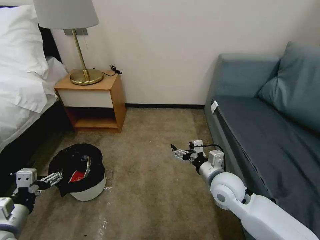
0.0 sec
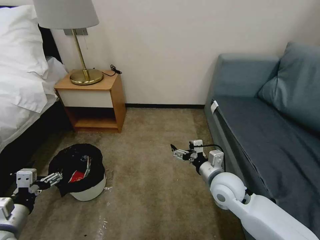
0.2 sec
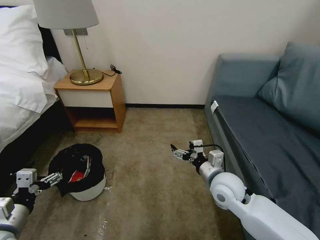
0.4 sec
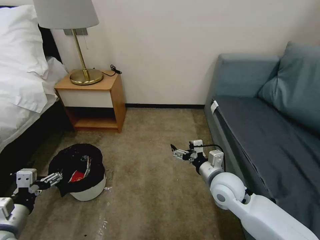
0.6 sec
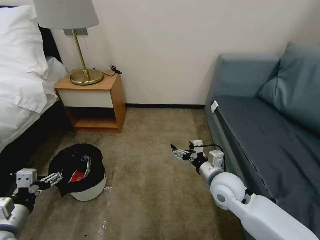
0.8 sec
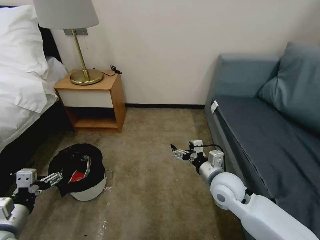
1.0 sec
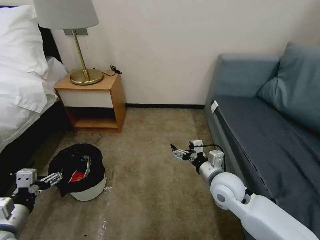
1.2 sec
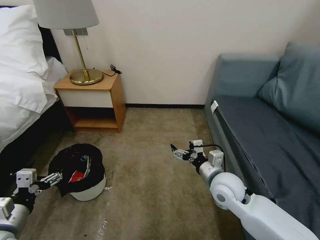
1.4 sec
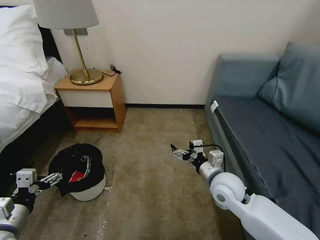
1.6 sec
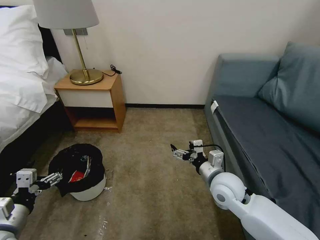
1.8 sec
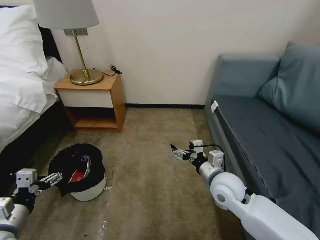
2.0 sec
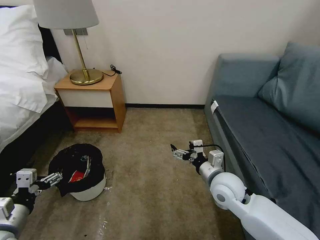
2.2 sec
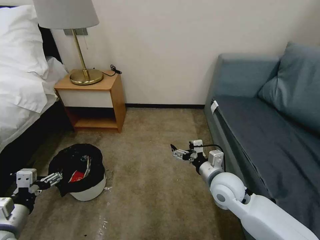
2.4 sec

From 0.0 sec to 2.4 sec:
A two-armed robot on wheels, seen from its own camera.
Task of the whole recording: Pick up the trash bin, then pick up the garbage on the floor and place it into the trash bin.
From 0.0 sec to 2.4 sec: Both grippers stay put.

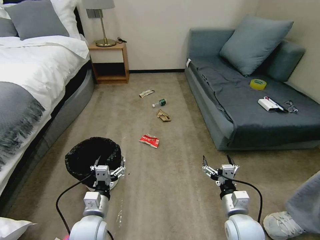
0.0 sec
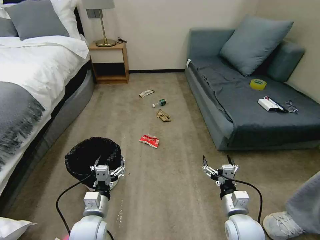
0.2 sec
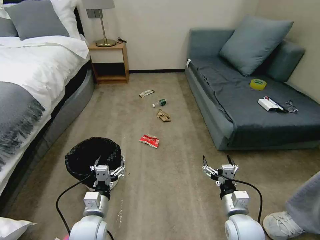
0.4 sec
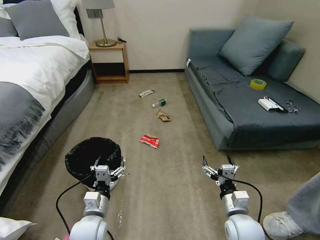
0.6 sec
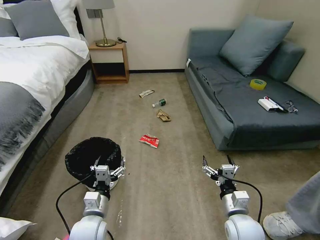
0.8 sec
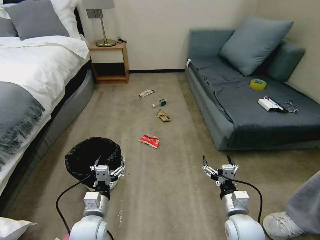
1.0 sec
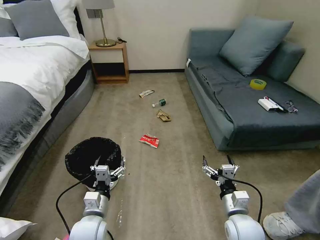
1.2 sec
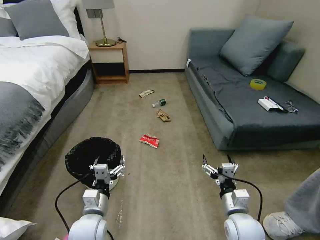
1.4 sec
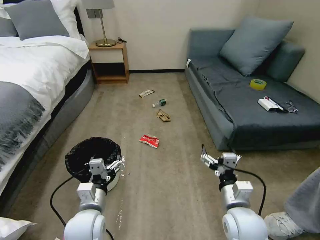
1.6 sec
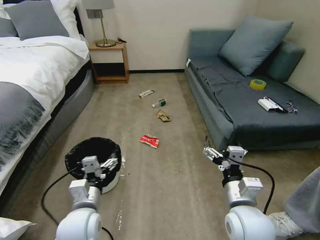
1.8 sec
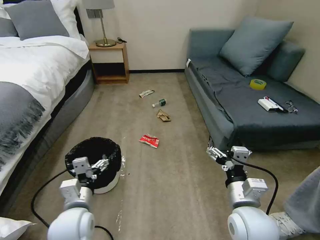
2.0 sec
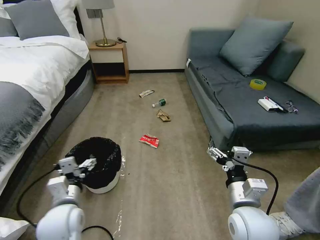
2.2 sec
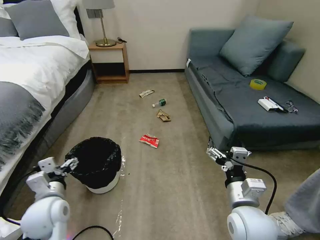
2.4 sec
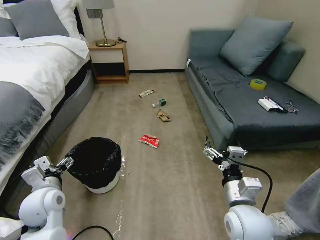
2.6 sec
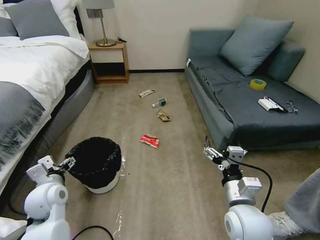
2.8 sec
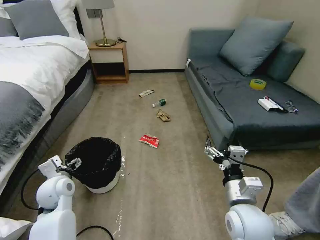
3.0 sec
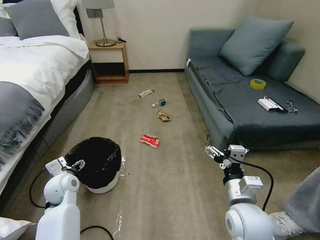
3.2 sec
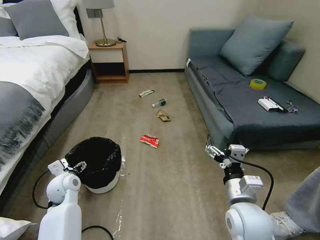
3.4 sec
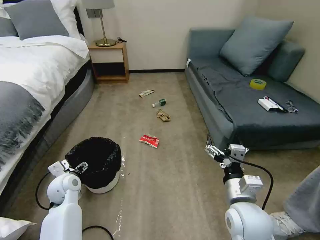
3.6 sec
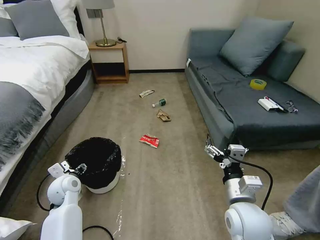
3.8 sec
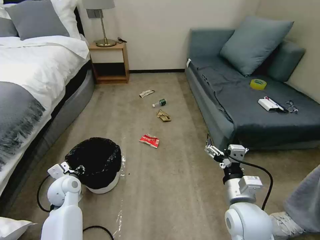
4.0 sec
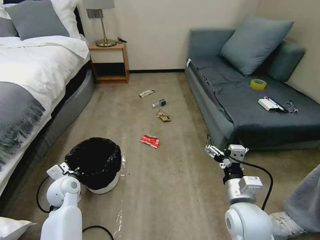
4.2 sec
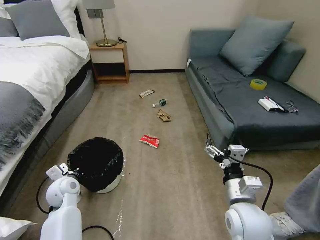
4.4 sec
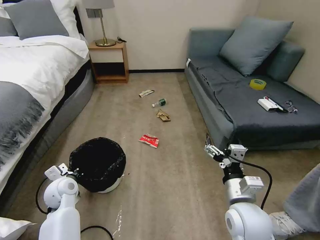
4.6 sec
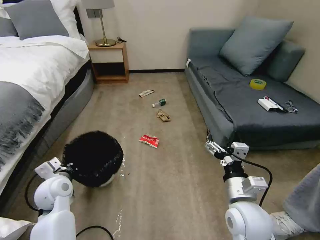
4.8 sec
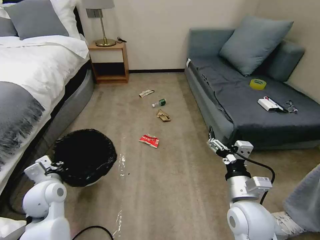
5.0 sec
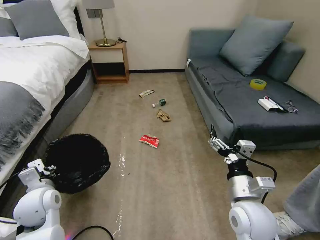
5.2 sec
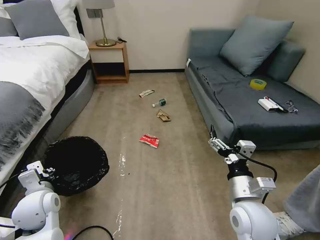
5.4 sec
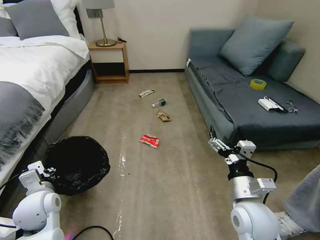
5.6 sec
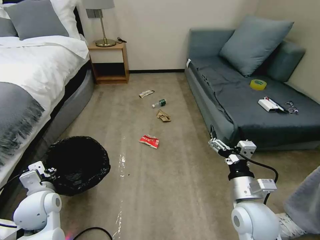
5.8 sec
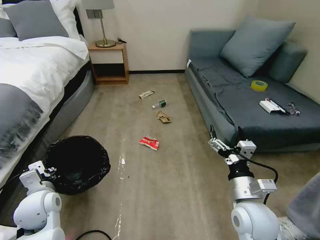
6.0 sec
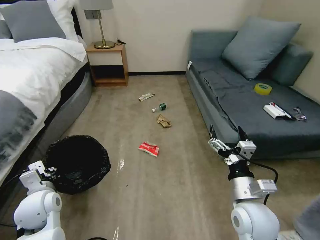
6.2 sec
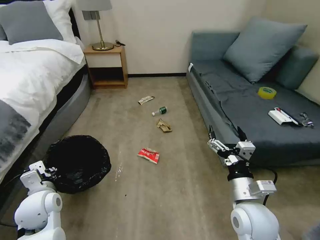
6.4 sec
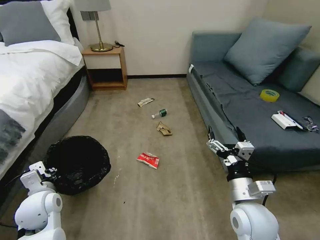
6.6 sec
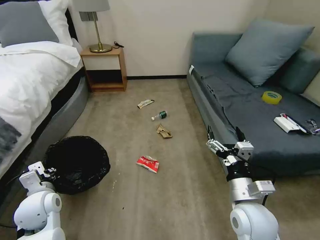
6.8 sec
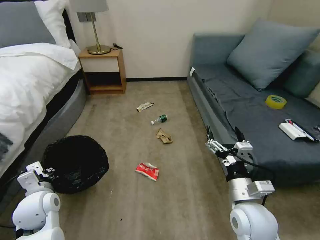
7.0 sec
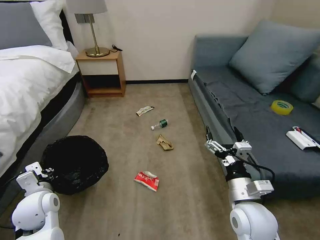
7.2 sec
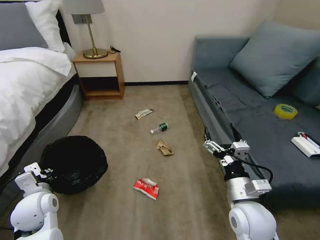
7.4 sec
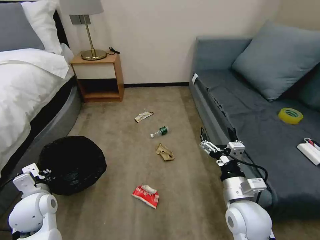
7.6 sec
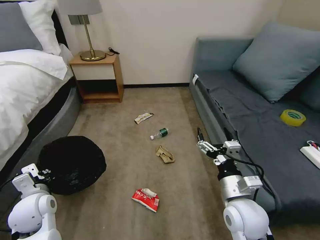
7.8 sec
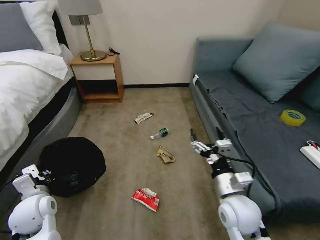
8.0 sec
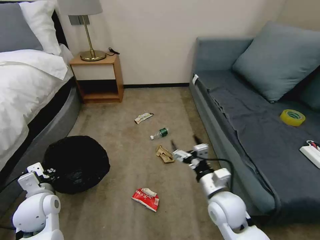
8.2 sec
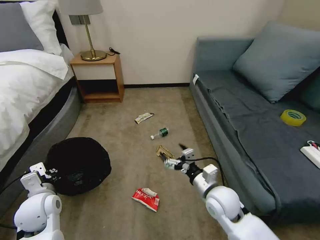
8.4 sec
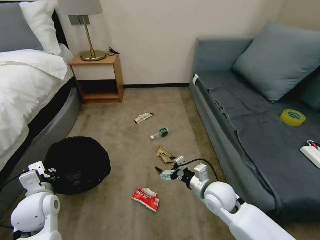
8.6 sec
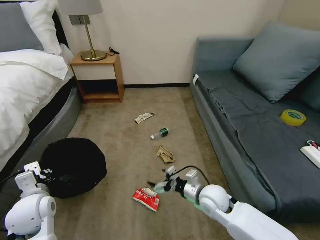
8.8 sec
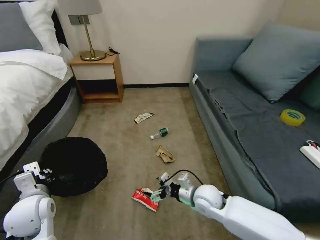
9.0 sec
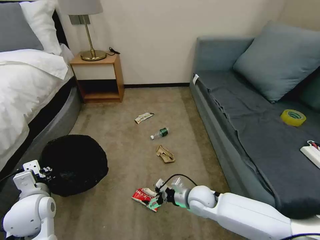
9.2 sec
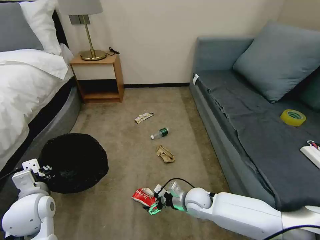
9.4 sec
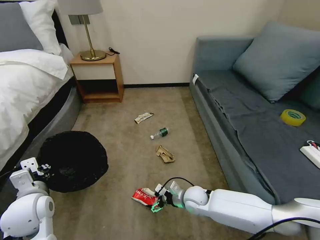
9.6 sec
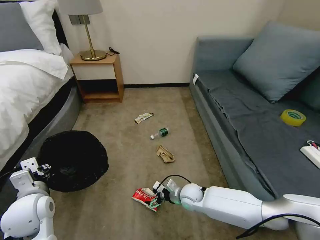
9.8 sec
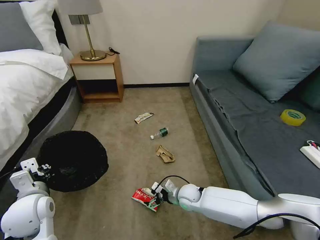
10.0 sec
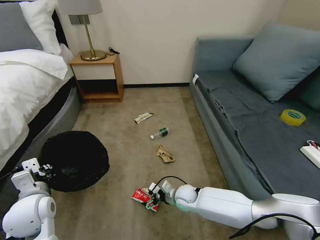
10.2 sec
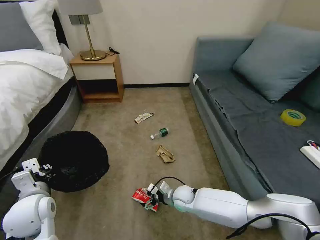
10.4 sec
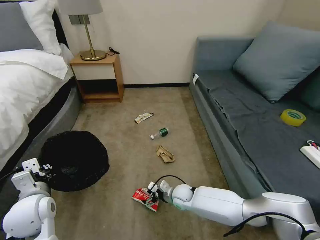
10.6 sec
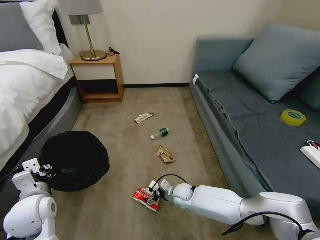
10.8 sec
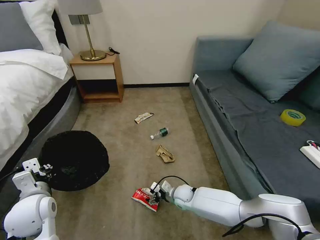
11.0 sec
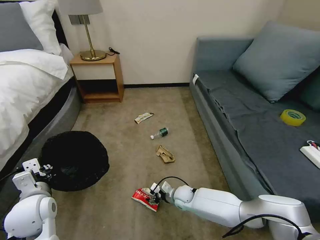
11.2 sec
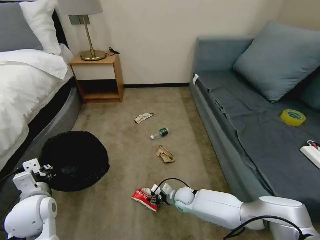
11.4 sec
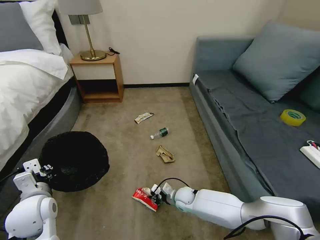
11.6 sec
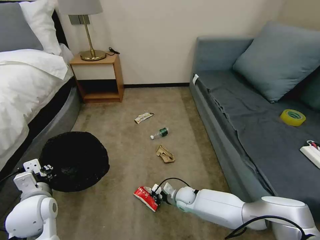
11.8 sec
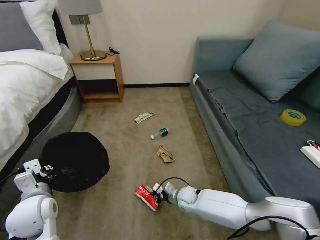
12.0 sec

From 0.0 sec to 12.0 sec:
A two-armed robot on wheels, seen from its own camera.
Task of the whole recording: Pick up the trash bin, then pick up the garbage on the floor and place it into the trash bin.
From 1.6 sec to 3.0 sec: The left gripper shifts approximately 15 cm to the left and forward.
From 3.0 sec to 4.4 sec: The left gripper closes its fingers.
From 4.4 sec to 6.0 sec: The left gripper is displaced backward and upward by roughly 10 cm.
From 7.6 sec to 9.0 sec: The right gripper goes about 15 cm downward, forward and to the left.
From 9.0 sec to 10.4 sec: The right gripper moves downward and to the left, roughly 15 cm.
From 10.4 sec to 12.0 sec: The right gripper closes.

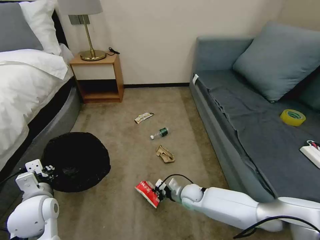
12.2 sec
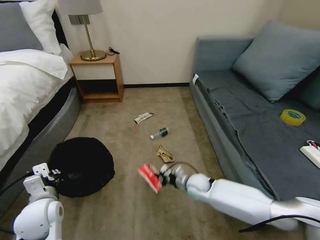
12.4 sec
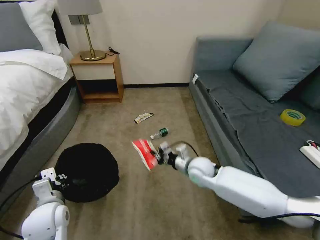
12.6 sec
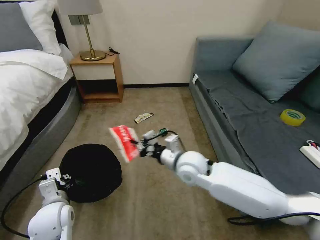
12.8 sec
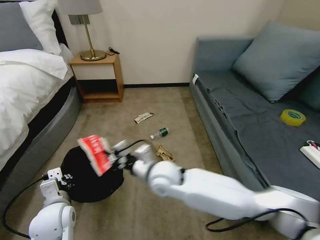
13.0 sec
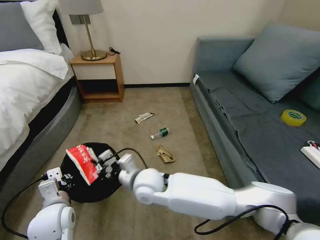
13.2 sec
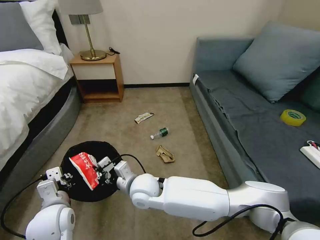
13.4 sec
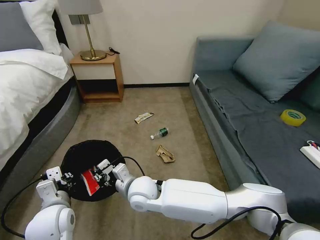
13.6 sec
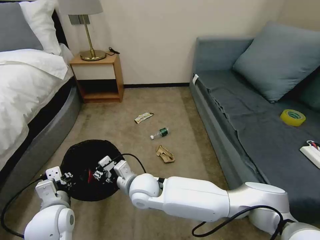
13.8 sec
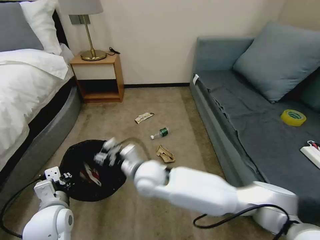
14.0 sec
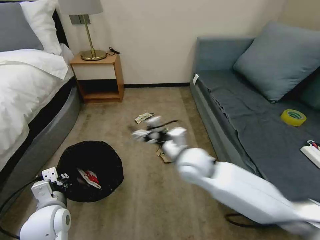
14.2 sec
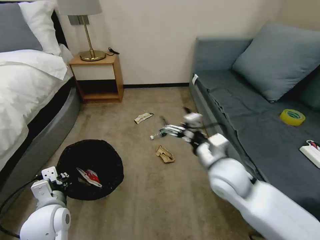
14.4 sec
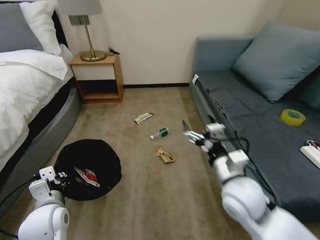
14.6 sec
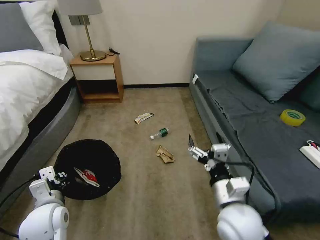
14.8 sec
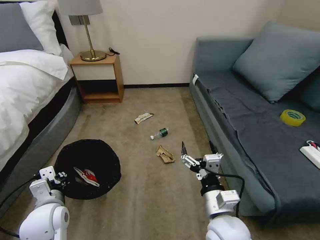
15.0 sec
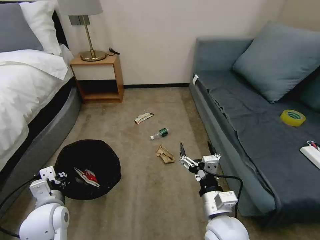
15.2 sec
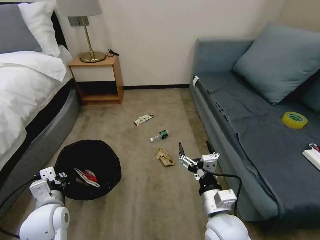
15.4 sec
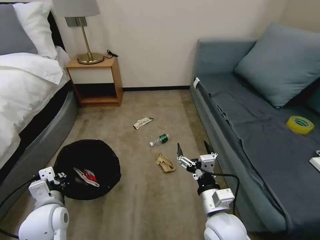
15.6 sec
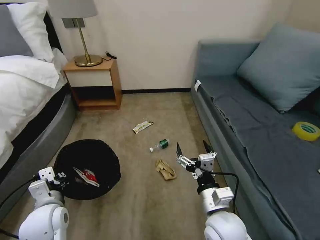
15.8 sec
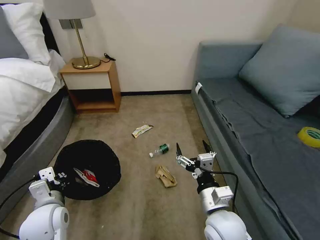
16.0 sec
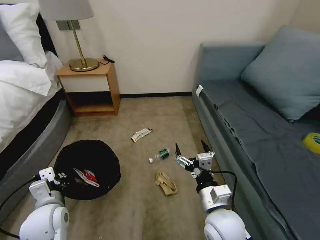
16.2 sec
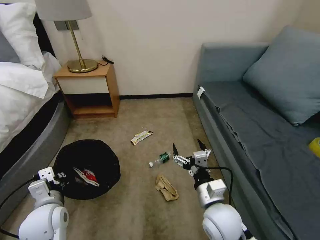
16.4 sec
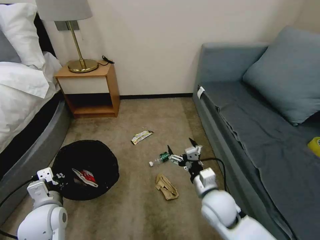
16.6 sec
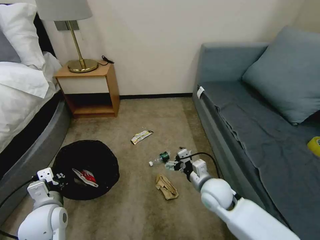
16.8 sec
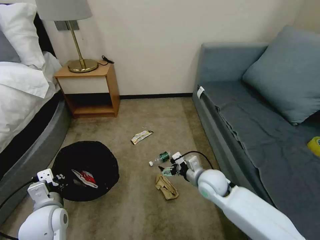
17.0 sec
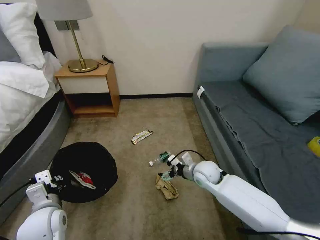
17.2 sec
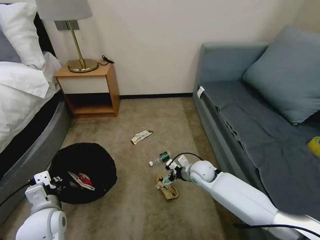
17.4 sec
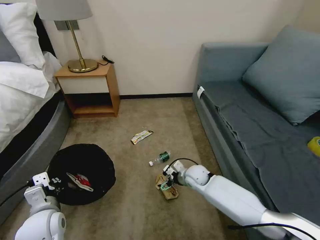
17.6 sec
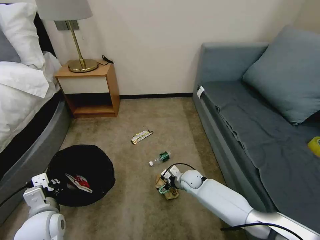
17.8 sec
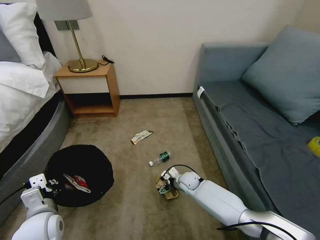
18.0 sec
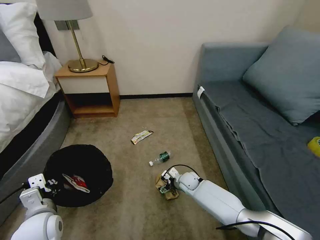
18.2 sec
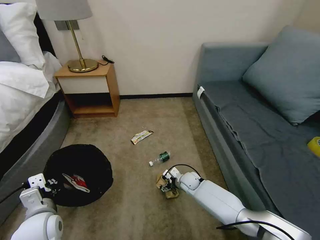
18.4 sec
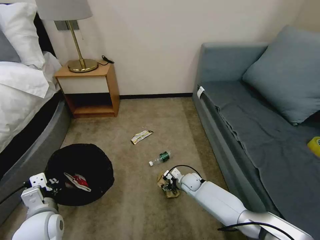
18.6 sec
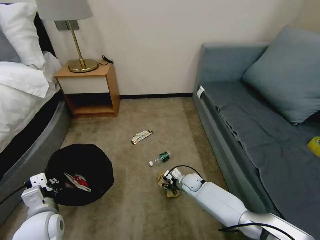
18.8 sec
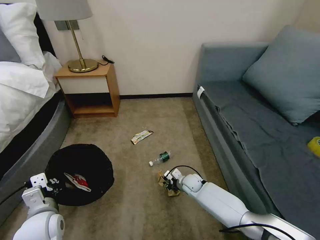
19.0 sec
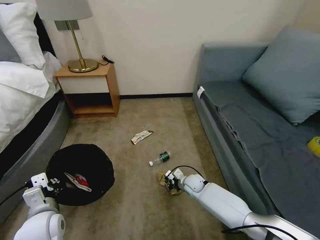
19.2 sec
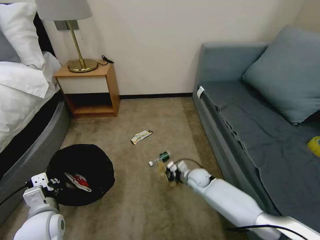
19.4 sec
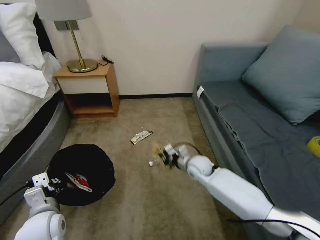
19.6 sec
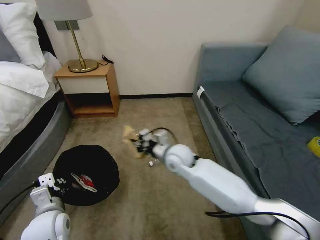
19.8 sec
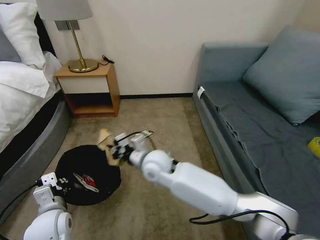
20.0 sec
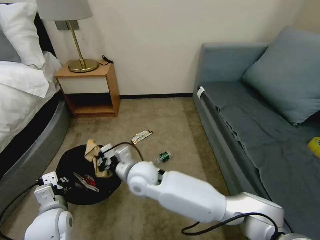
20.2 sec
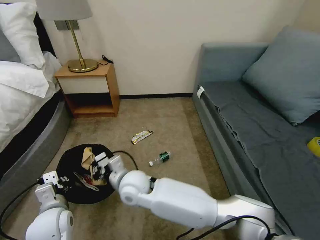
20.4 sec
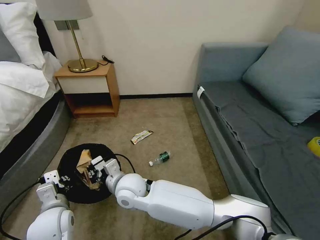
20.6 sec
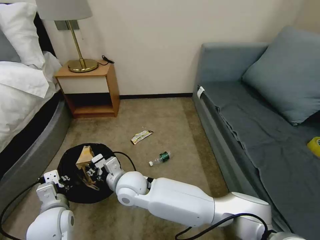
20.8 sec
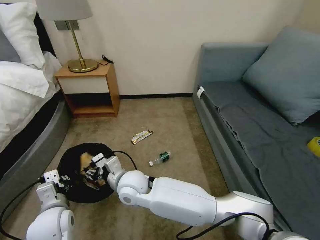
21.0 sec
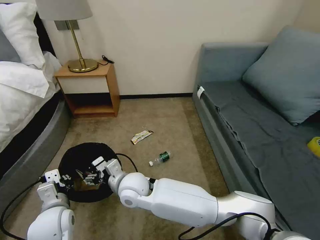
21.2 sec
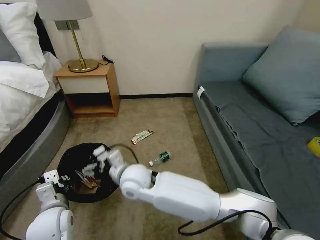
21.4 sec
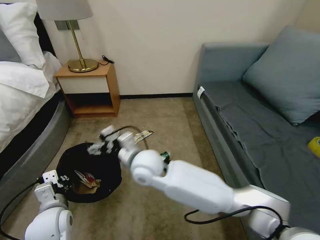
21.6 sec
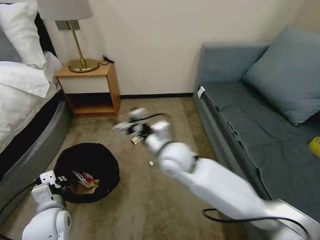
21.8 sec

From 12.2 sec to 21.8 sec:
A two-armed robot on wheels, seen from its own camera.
Task of the whole recording: Pick up the trash bin, then pick up the garbage on the floor and place it into the trash bin.
From 12.2 sec to 13.8 sec: The right gripper moves to the left and upward, some 25 cm, and opens. The left gripper travels to the right by some 5 cm.
From 13.8 sec to 15.4 sec: The right gripper shifts some 25 cm to the right and backward, and opens up.
From 15.4 sec to 17.0 sec: The right gripper is displaced forward by about 15 cm.
From 17.0 sec to 18.6 sec: The right gripper is displaced downward and forward by approximately 20 cm.
From 18.6 sec to 20.2 sec: The right gripper goes some 30 cm upward and to the left, and closes.
From 20.2 sec to 21.8 sec: The right gripper shifts roughly 15 cm to the right and upward, and opens.
